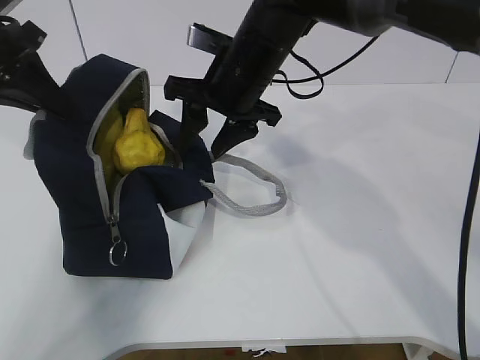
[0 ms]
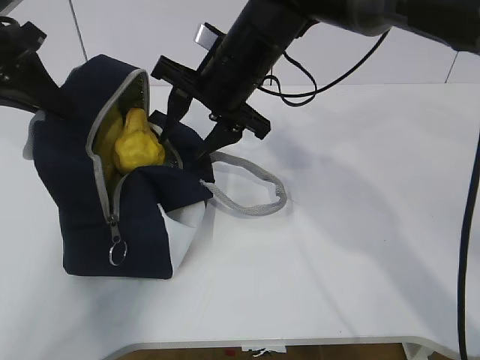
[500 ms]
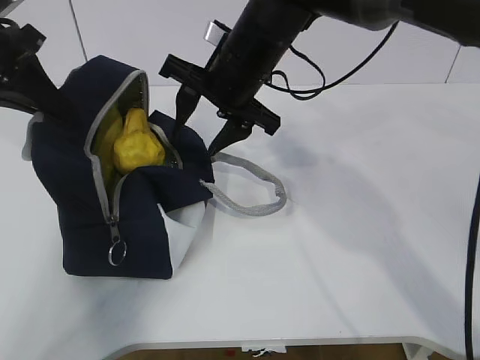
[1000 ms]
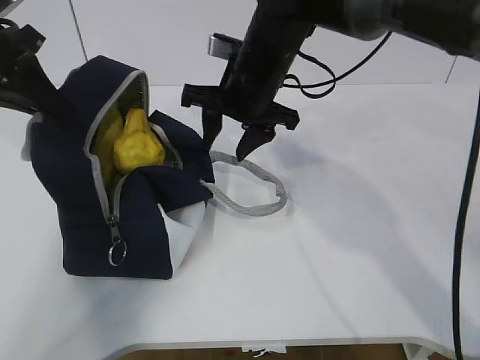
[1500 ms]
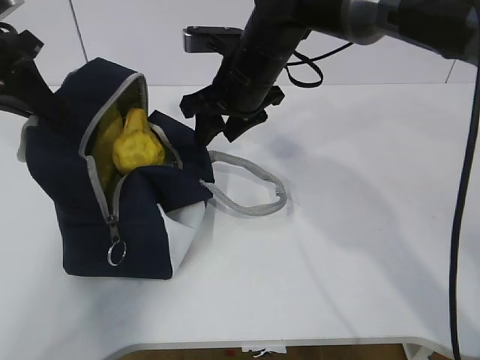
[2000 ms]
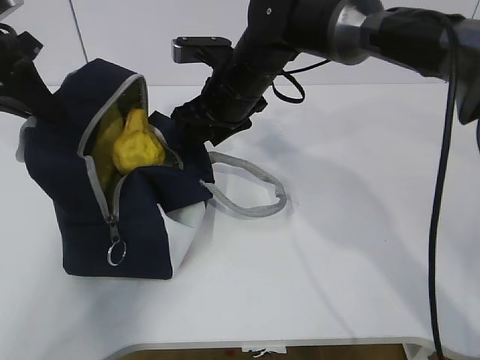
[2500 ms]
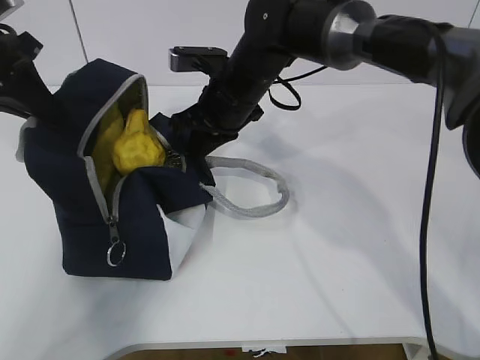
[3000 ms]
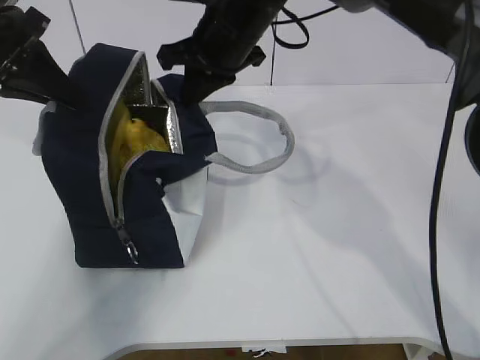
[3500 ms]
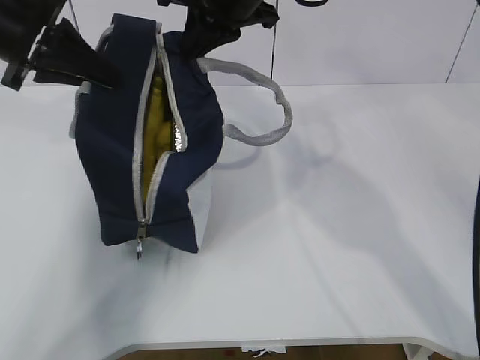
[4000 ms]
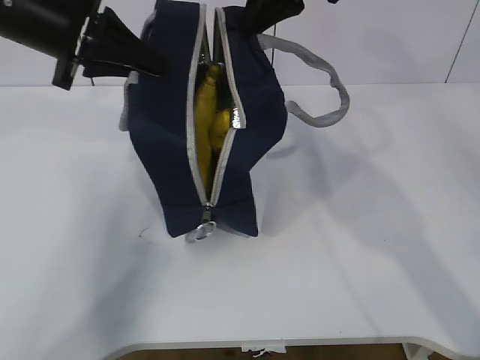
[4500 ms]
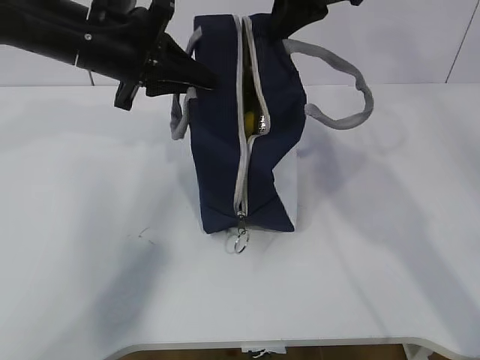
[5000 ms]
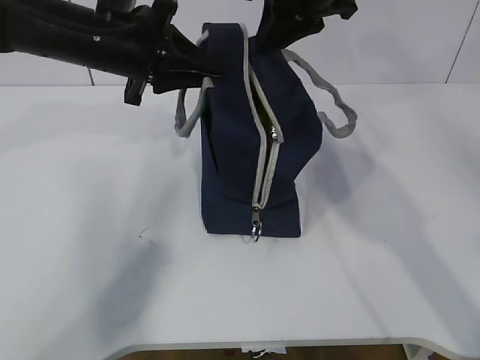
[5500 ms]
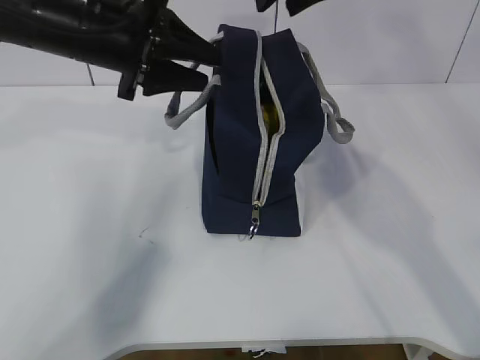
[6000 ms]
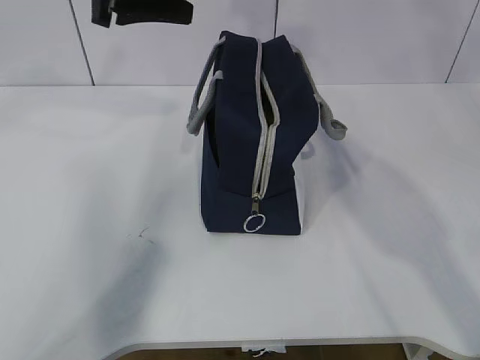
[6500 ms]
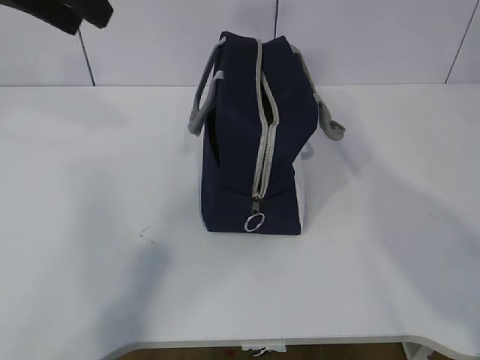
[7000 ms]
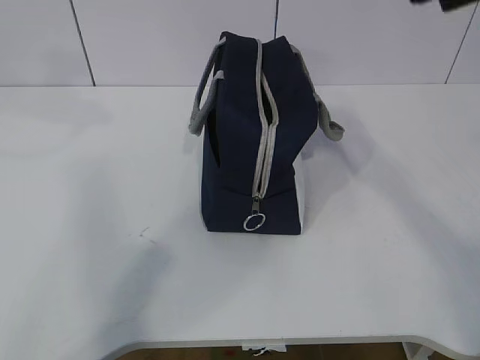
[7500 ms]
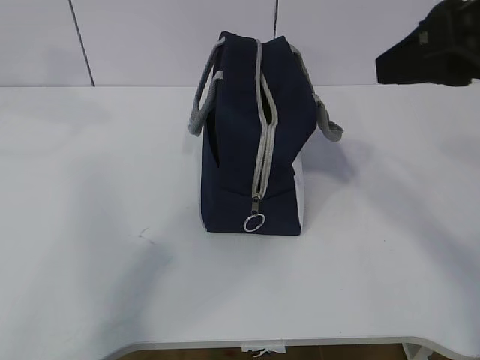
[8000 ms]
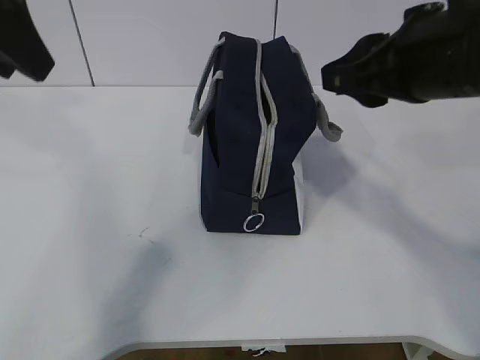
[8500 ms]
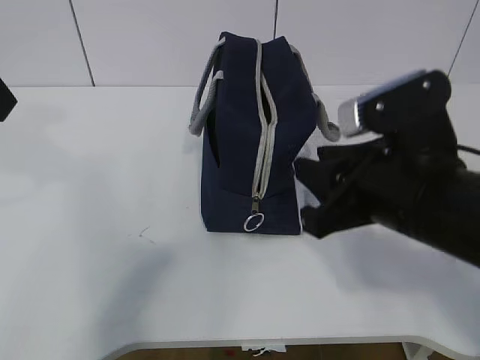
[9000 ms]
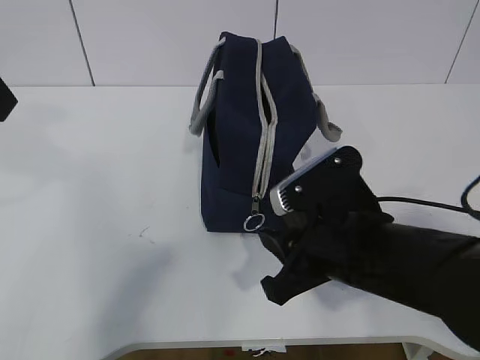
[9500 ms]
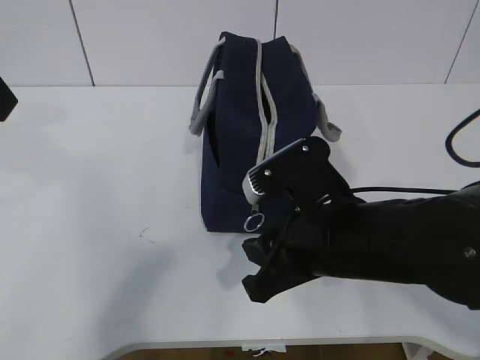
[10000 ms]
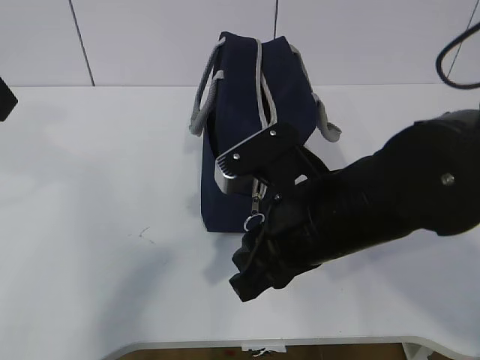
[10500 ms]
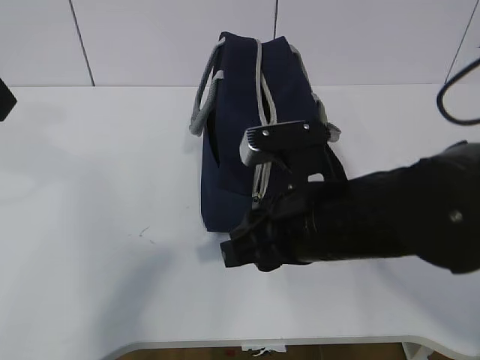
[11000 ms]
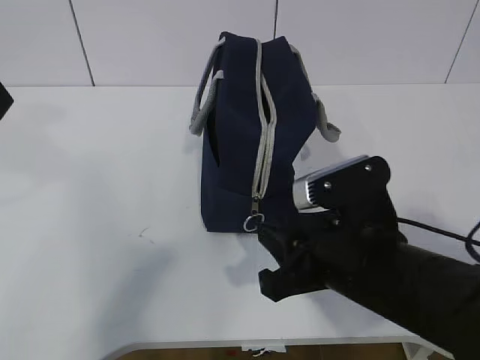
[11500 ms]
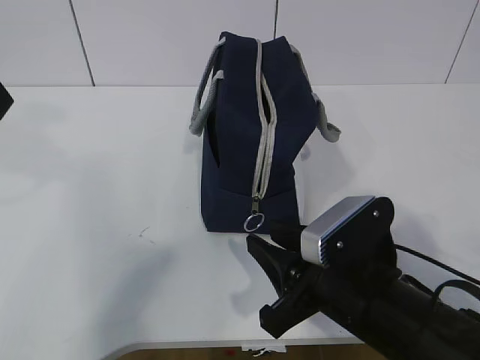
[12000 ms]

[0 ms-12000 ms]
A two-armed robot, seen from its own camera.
2000 ms to 4000 ms: The right gripper moves upward, about 10 cm, and closes.
4000 ms to 6000 ms: Both grippers move to the right, about 10 cm. The right gripper opens its fingers; the left gripper opens its fingers.
6000 ms to 8000 ms: The right gripper heads backward, covering roughly 20 cm; the left gripper heads upward and backward, covering some 20 cm.
8000 ms to 10000 ms: The left gripper travels downward by about 5 cm. Meanwhile the right gripper travels downward and to the left by about 20 cm.
10000 ms to 12000 ms: The right gripper heads downward, covering roughly 5 cm.

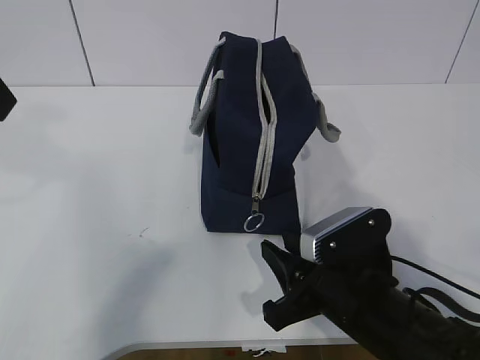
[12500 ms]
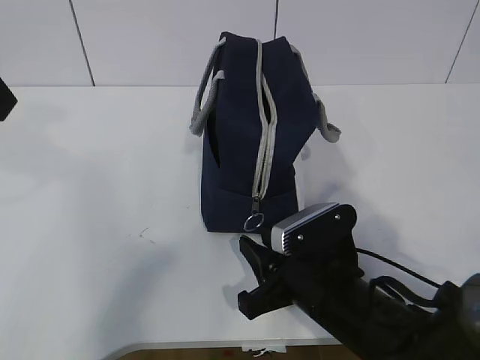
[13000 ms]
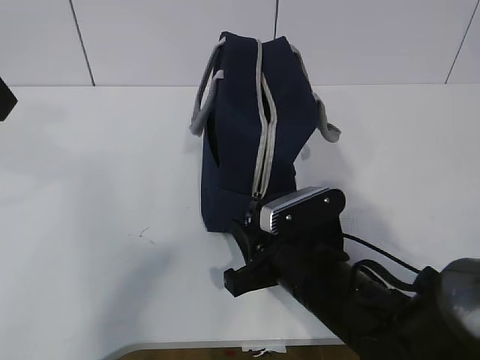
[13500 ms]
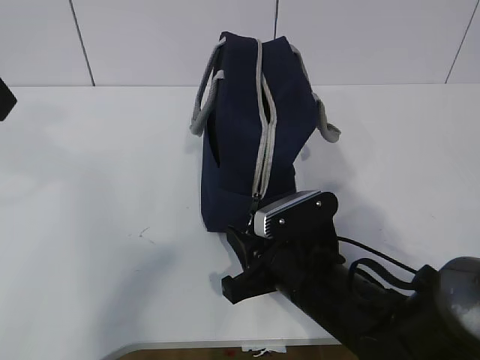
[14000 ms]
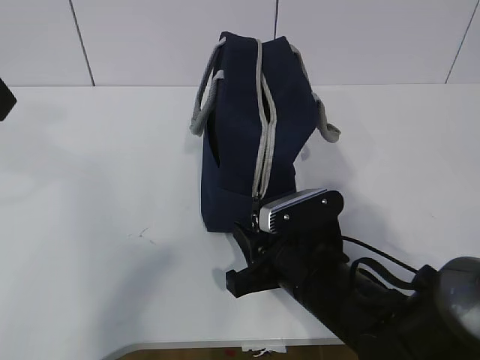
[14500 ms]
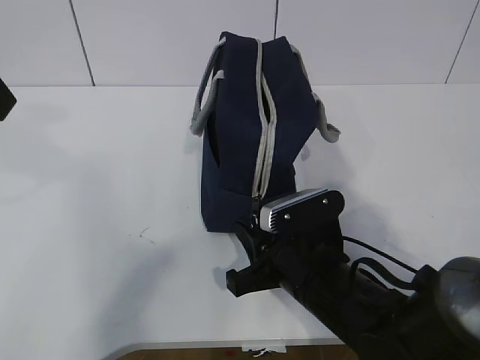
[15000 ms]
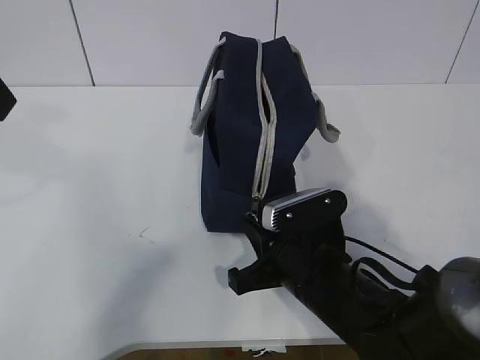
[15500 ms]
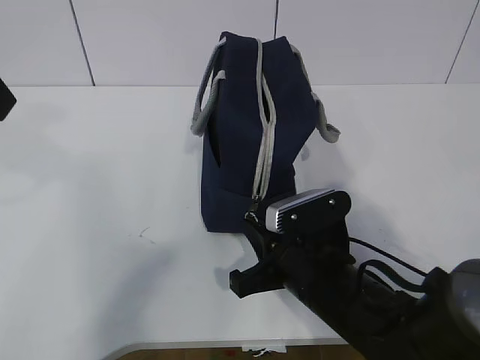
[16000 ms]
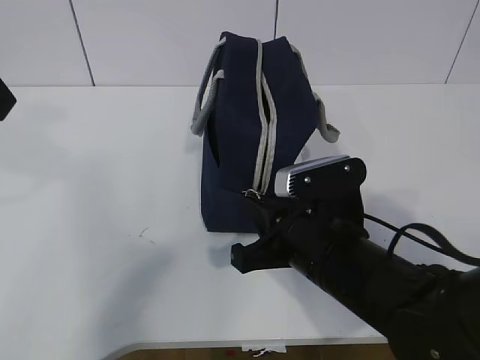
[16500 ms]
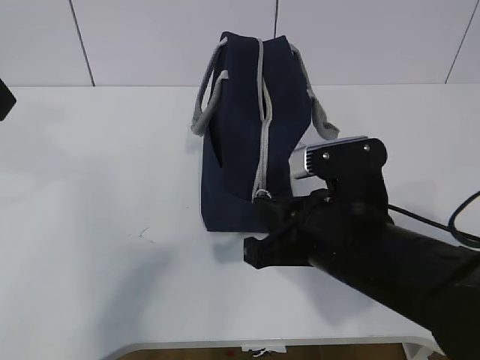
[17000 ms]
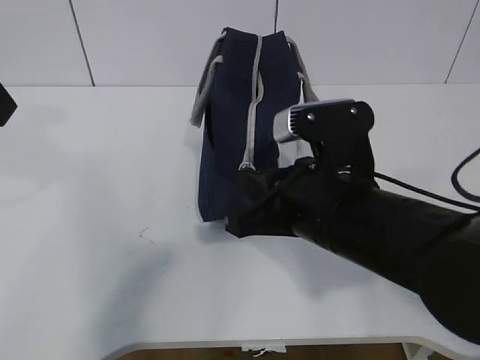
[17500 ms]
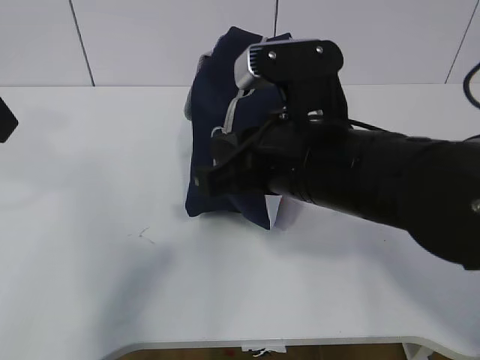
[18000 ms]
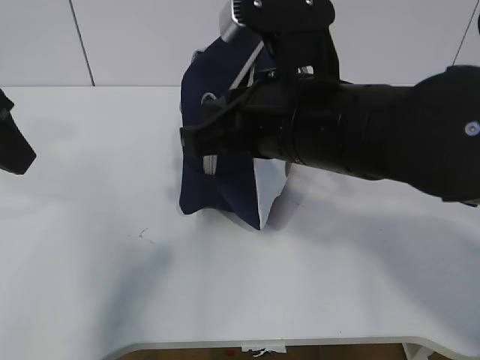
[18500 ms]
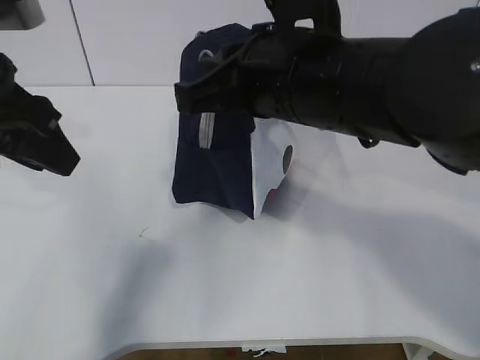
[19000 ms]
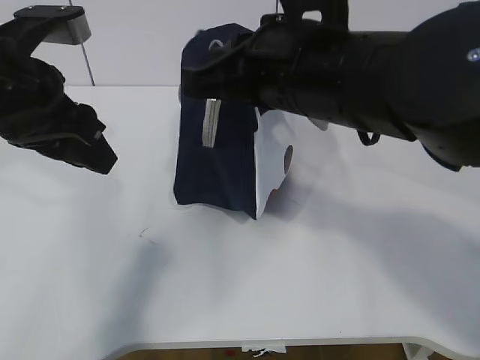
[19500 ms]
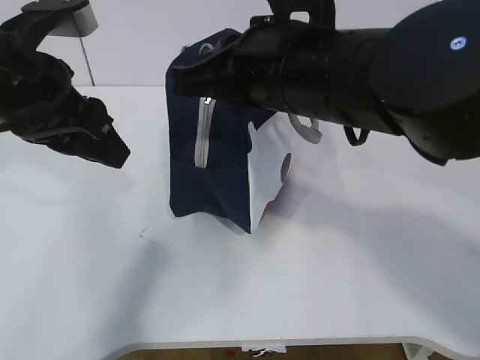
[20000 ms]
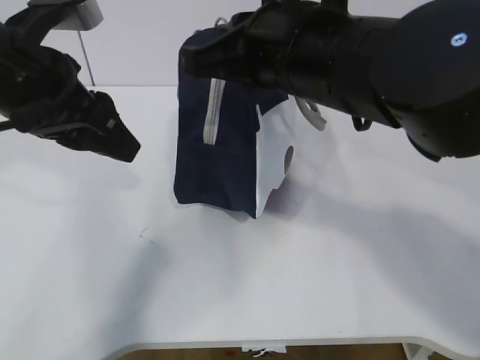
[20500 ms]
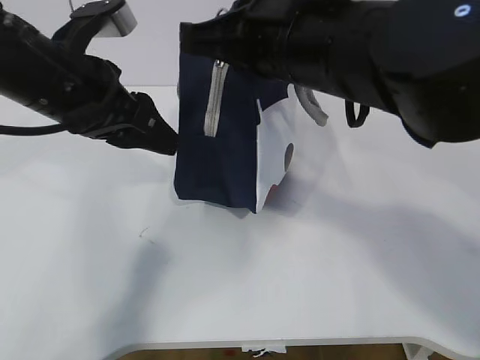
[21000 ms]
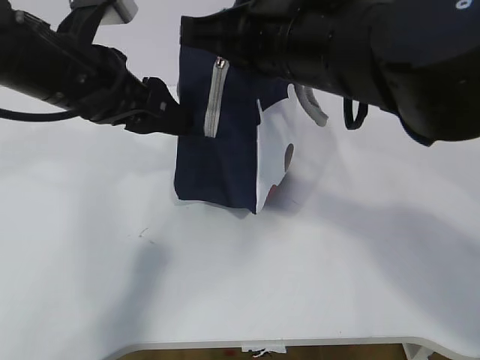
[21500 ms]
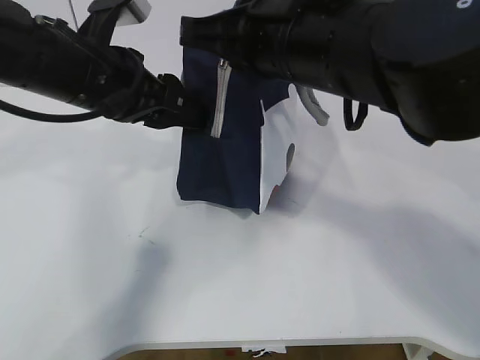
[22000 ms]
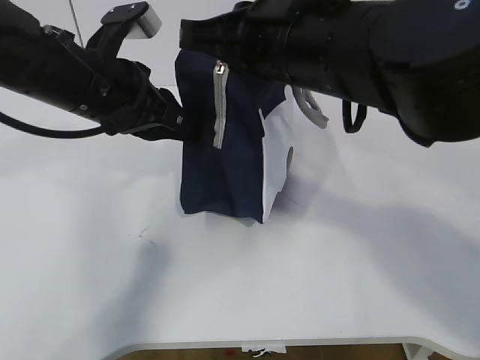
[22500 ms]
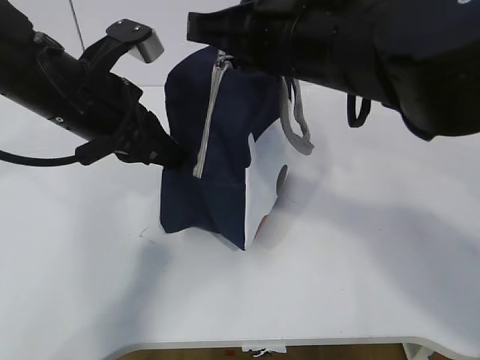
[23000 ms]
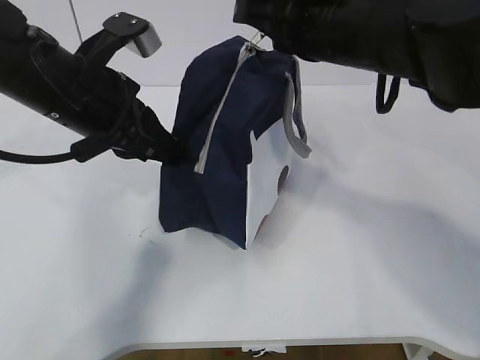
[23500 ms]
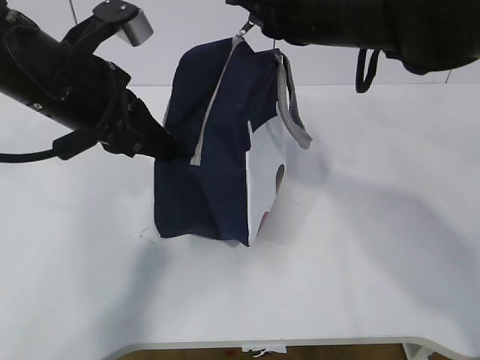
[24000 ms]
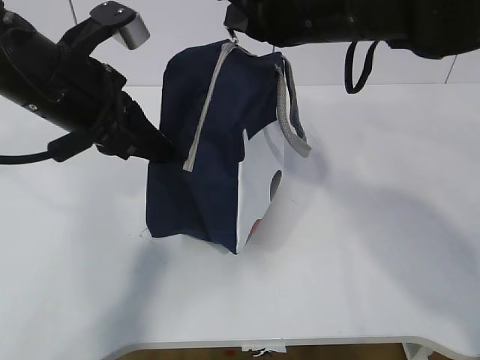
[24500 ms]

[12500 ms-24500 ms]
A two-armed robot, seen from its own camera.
Step, 17500 ms to 21000 ms: Pull the zipper with your right hand.
12500 ms to 14500 ms: The right gripper ends up roughly 5 cm from where it was.
14500 ms to 16500 ms: The right gripper closes up.
16500 ms to 18500 ms: The right gripper heads upward, covering roughly 15 cm.
18500 ms to 20500 ms: The left gripper shifts by some 10 cm.
20500 ms to 22500 ms: The left gripper changes place by approximately 10 cm, and closes up.
22500 ms to 24500 ms: The right gripper heads forward, covering about 5 cm.

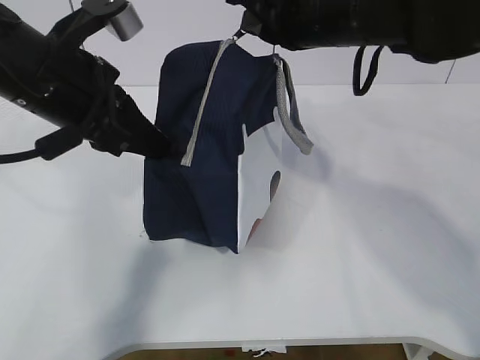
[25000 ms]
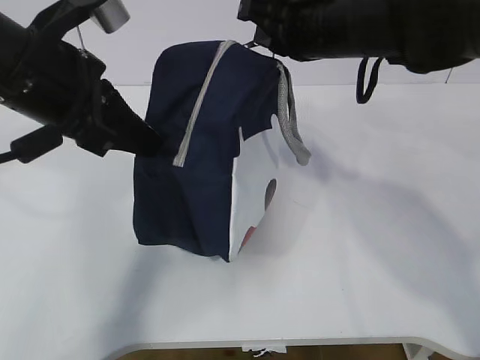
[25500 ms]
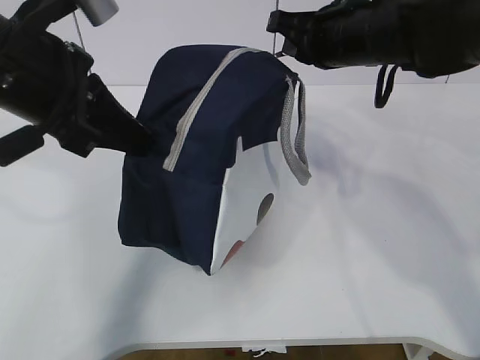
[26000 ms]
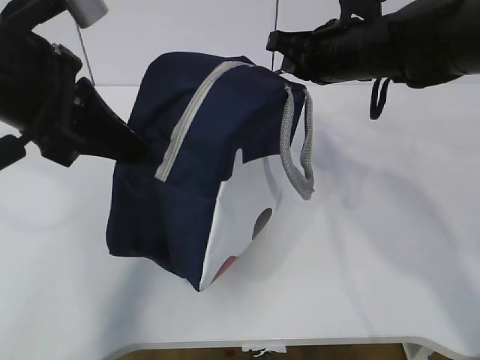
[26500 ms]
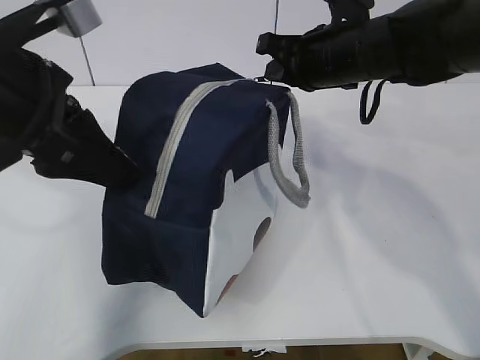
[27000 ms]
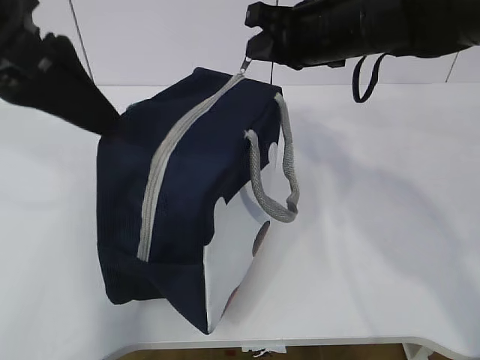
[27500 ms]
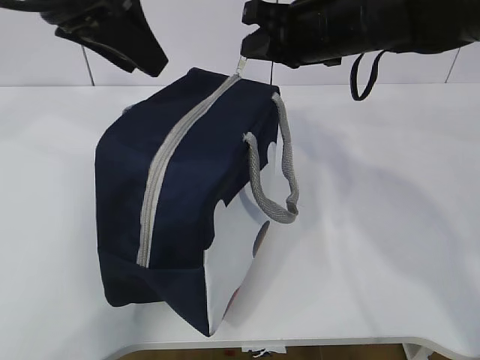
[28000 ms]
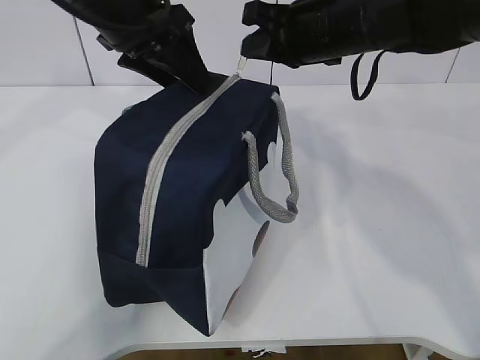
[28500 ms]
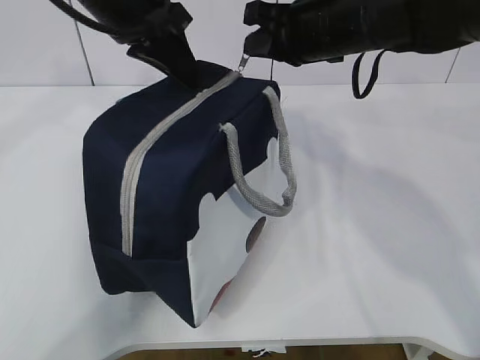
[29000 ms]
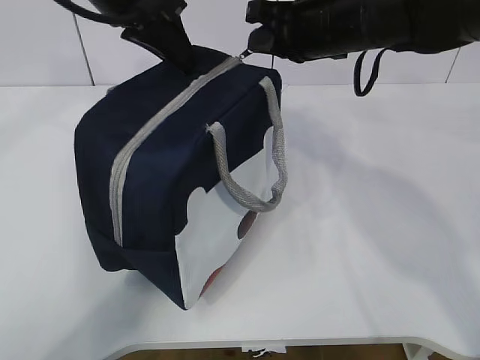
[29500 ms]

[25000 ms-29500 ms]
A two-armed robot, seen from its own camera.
25000 ms to 27000 ms: The right gripper travels downward by about 5 cm; the left gripper moves roughly 5 cm, and opens its fingers.
27000 ms to 29500 ms: The left gripper shifts roughly 15 cm forward and to the right, and closes.
